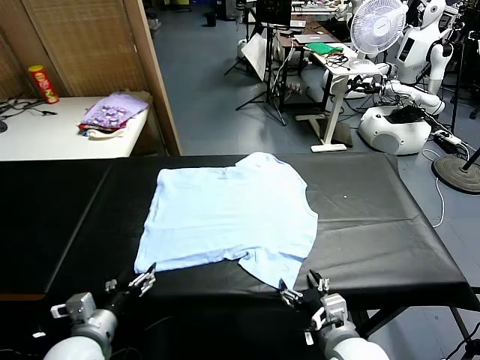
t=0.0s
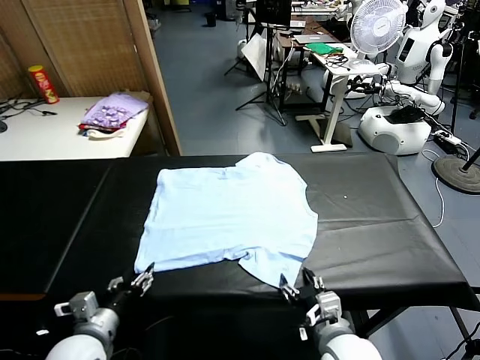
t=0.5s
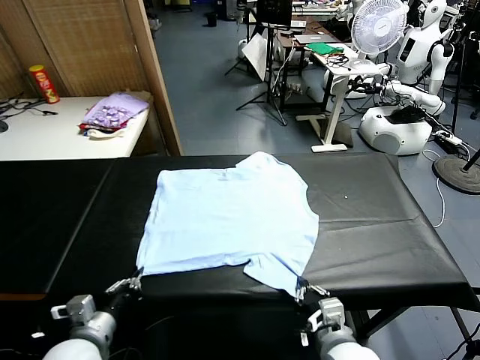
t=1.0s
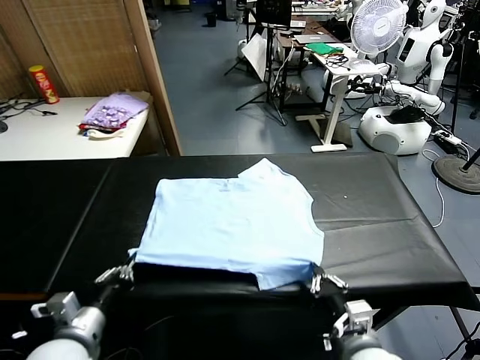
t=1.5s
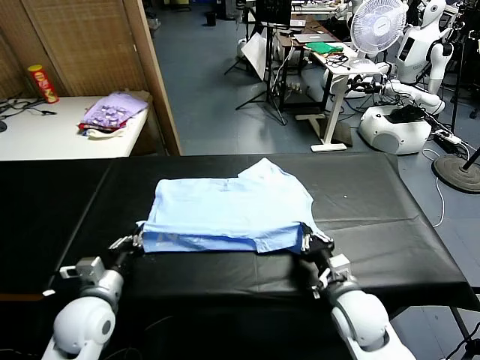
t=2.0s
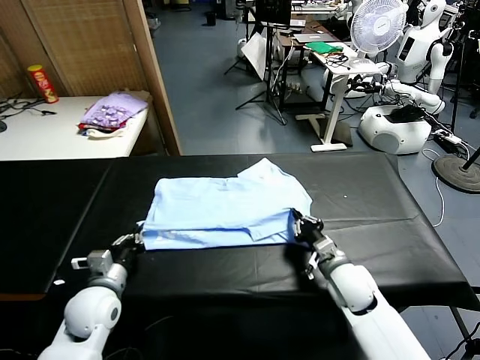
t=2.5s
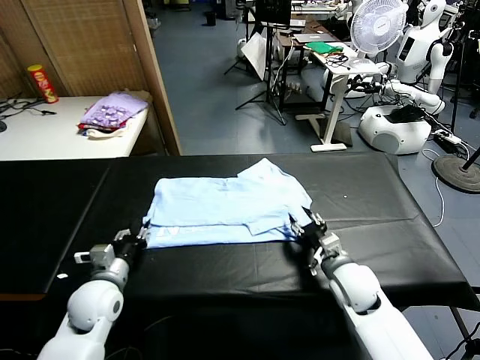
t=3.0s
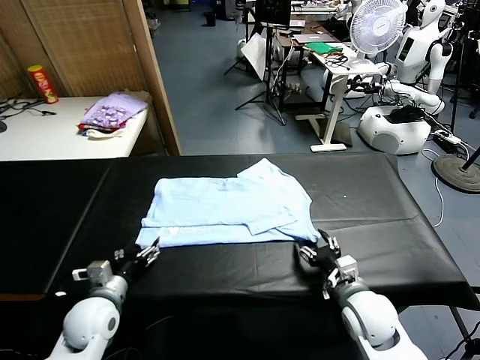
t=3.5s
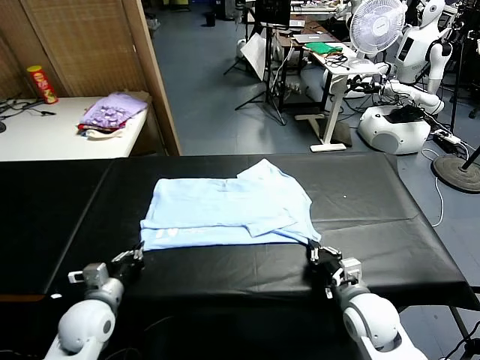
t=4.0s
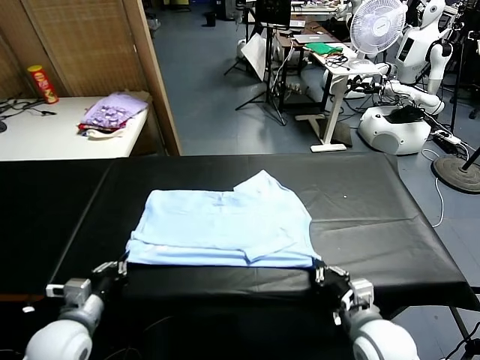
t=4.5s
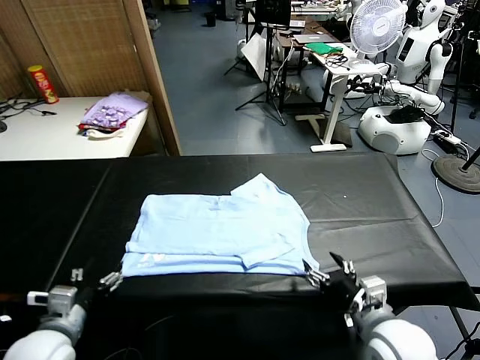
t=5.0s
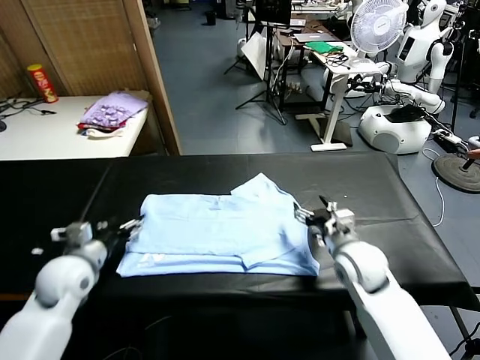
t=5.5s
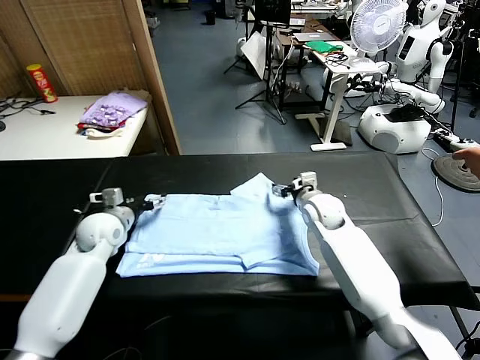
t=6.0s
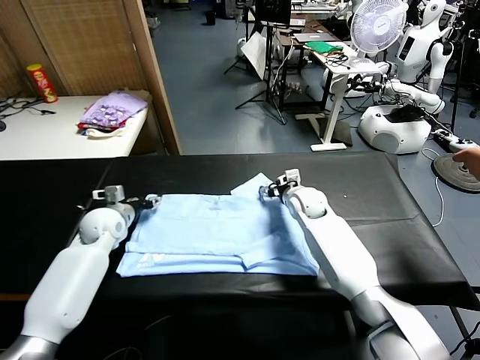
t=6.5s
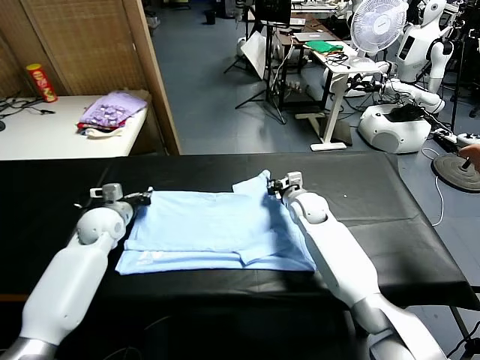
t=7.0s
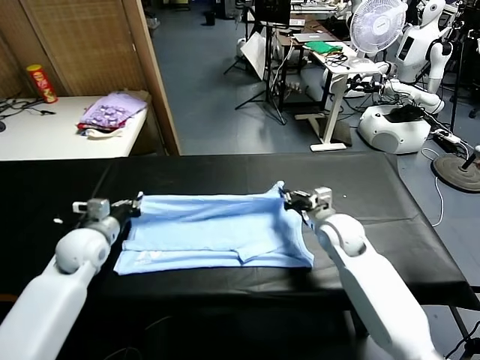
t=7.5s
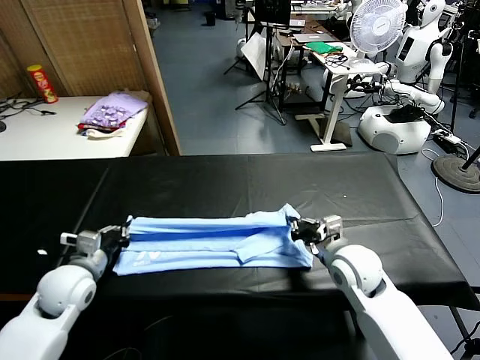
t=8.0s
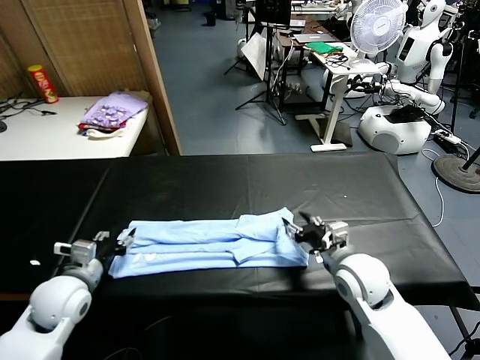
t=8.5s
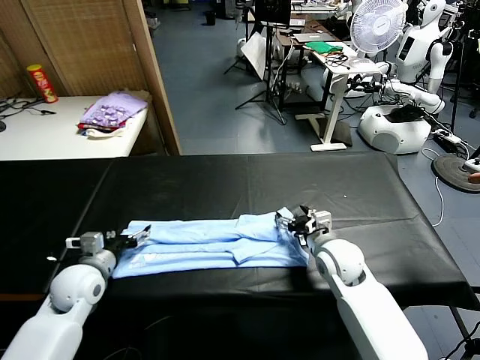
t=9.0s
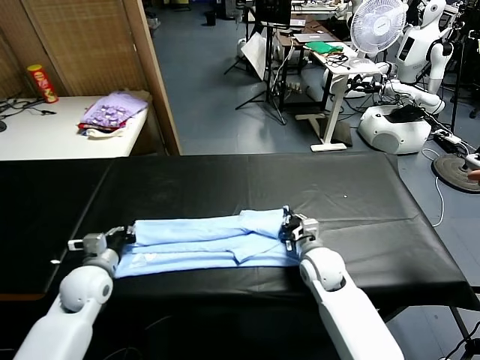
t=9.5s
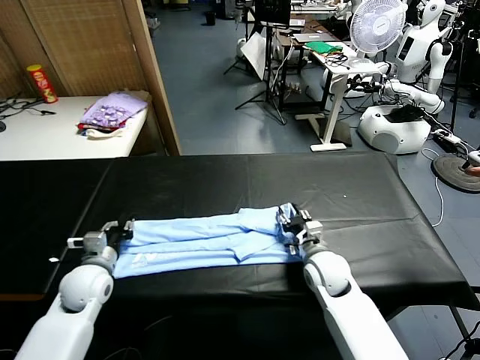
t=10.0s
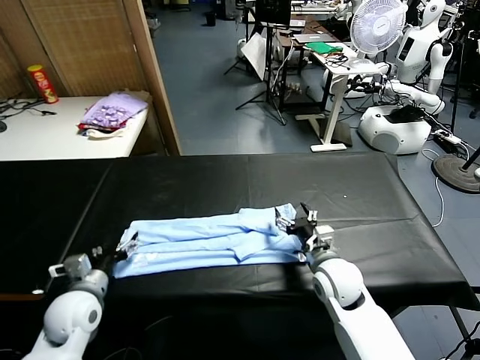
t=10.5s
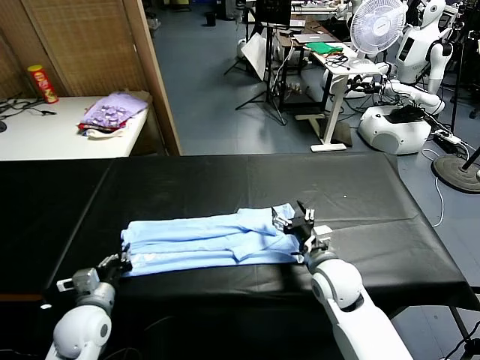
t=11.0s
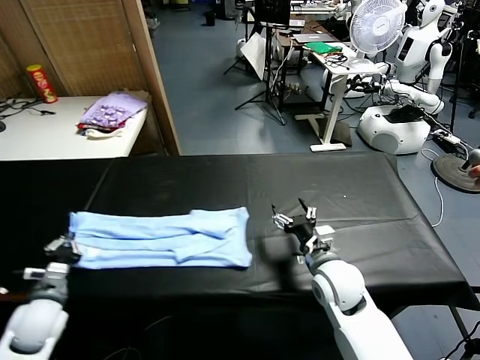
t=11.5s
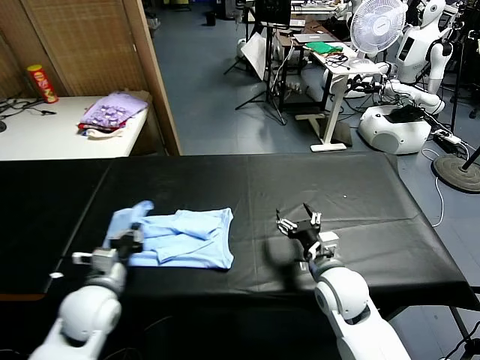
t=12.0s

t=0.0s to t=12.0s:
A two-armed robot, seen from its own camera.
Task of the whole recording: fold and organize the clothes.
Step, t=0.0s to t=0.5s: use both grippers simultaneously to clamp the lower edge of the clothing fabric.
Step, t=1.0s to t=2.5s: use both grippers to drag the lower edge of the fabric forward and fold it over the upper edge.
Step, t=3.0s to t=4.5s: Drag the clothes downward with both gripper.
Step, t=5.0s to t=6.5s: use both grippers simultaneously to clamp the upper edge of the clothing fabric.
Step, t=7.0s to t=8.0s: use both grippers to drag the upper edge of the fabric backward and fold it over the lower edge.
Step, t=8.5s to t=11.0s: use the left gripper to clamp the left edge of the fabric.
t=2.0s to t=4.0s: The left gripper opens, then closes again, while the right gripper travels backward by about 5 cm, and opens and closes again.
t=4.0s to t=6.0s: Both grippers move forward, about 25 cm. The right gripper opens its fingers, while the left gripper opens up.
t=6.0s to t=8.0s: Both grippers move backward, roughly 15 cm. The right gripper closes, while the left gripper closes up.
t=8.0s to t=10.0s: The right gripper is displaced downward by about 5 cm, and opens up. Meanwhile the left gripper opens and closes again.
t=10.0s to t=12.0s: The left gripper heads backward and to the right, covering some 10 cm, and opens, then closes once more. The right gripper moves backward, some 5 cm.

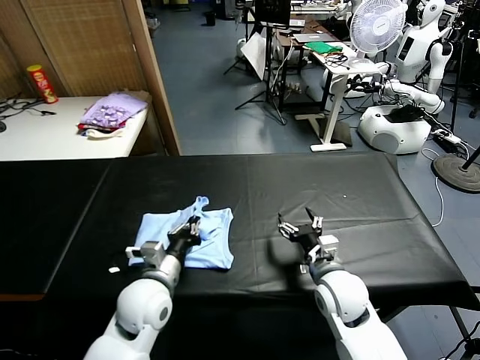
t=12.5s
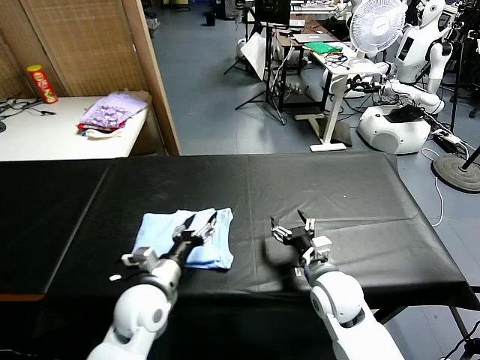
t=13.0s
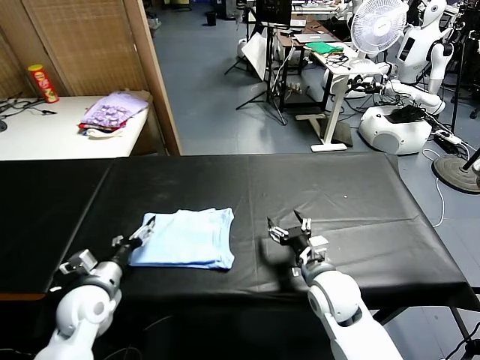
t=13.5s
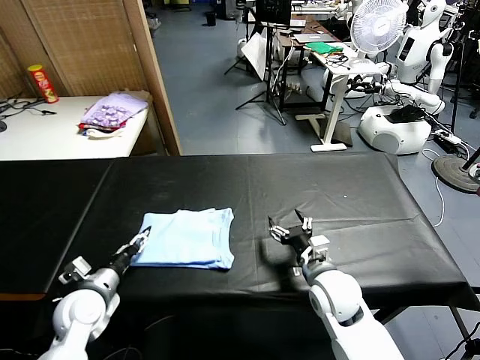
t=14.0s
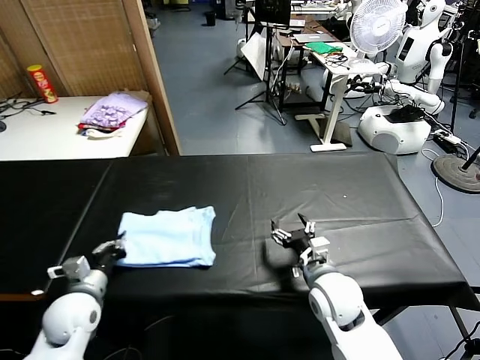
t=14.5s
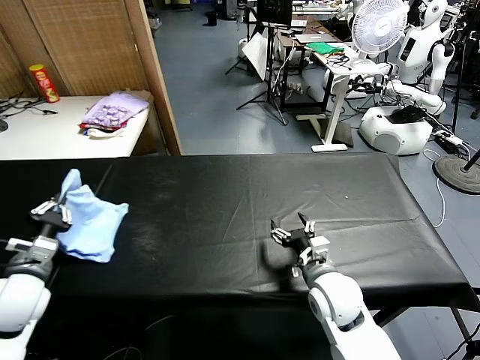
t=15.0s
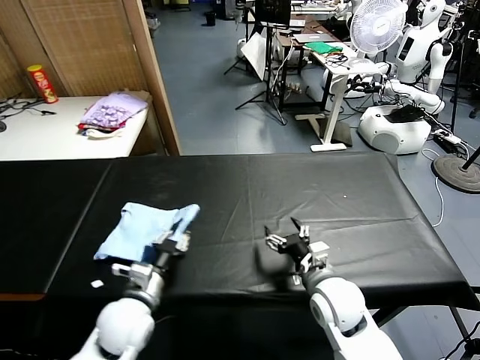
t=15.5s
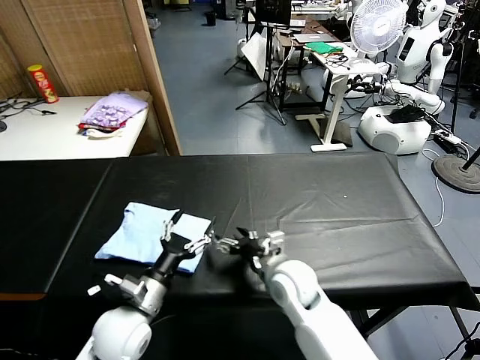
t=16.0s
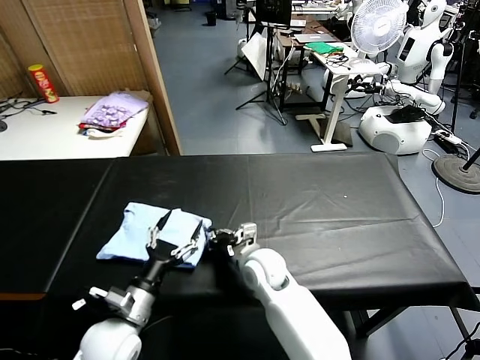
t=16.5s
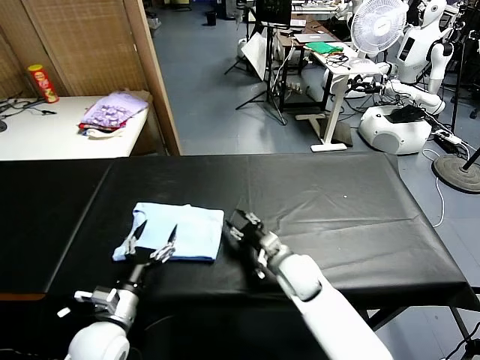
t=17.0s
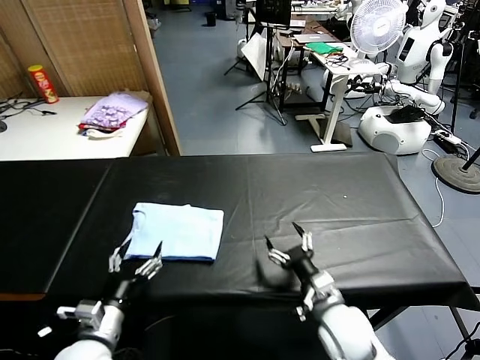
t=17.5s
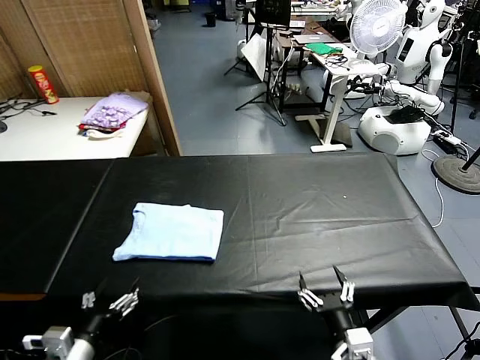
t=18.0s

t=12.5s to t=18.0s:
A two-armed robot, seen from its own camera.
Task of the whole recording: fold and organize the clothes.
Step, t=13.0s to t=15.5s: Flip the folded clothes over with left gripper.
Step, t=16.0s to t=16.5s: Drag the clothes to the center of the table.
t=12.5s to t=14.5s: The left gripper goes roughly 15 cm to the left, and opens, then closes again.
t=14.5s to t=16.0s: The left gripper moves to the right, roughly 15 cm, and opens, while the right gripper travels to the left by roughly 10 cm.
t=16.0s to t=18.0s: The right gripper shifts roughly 25 cm backward and to the right, and closes, then reopens, while the left gripper goes about 15 cm backward and to the left.
